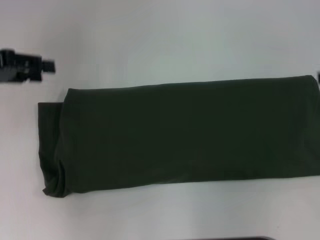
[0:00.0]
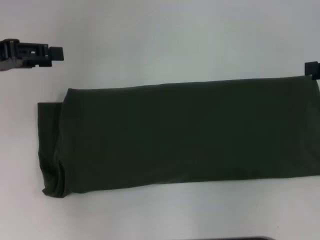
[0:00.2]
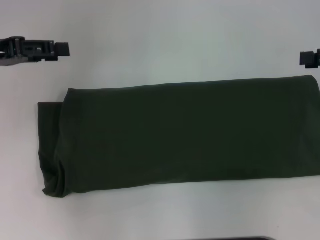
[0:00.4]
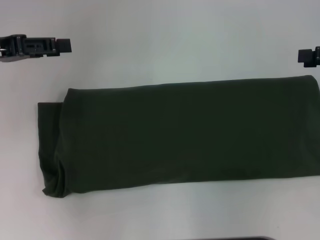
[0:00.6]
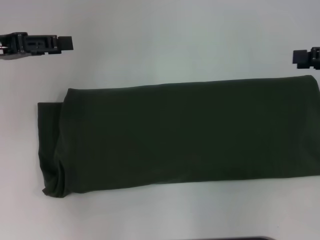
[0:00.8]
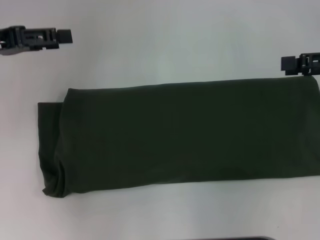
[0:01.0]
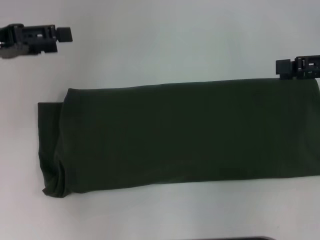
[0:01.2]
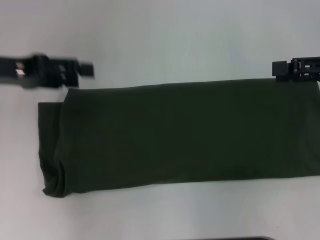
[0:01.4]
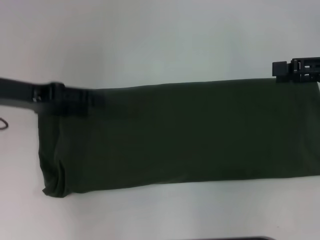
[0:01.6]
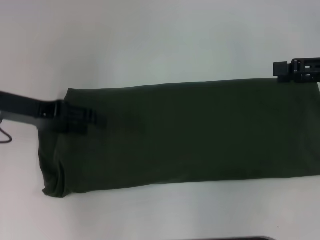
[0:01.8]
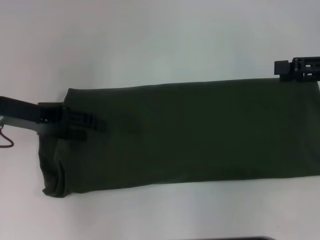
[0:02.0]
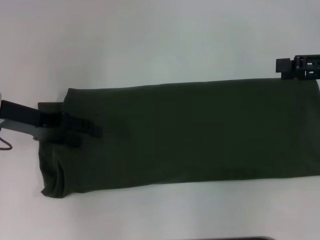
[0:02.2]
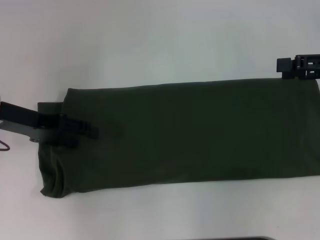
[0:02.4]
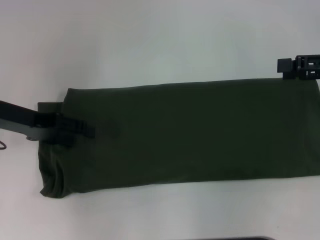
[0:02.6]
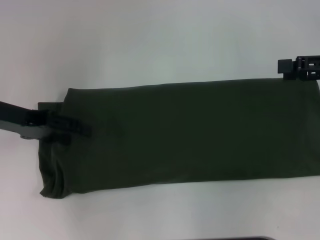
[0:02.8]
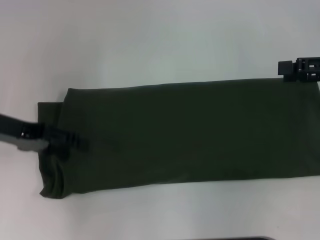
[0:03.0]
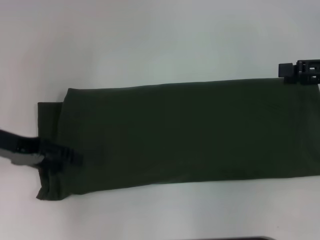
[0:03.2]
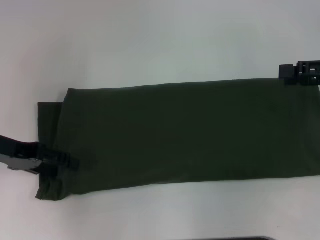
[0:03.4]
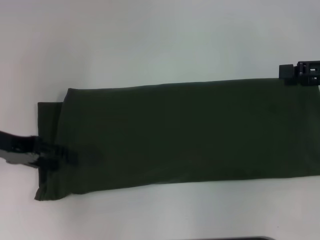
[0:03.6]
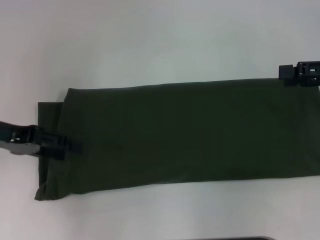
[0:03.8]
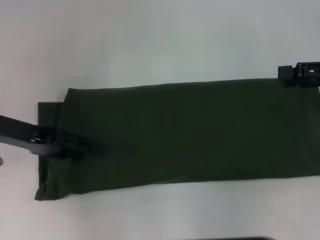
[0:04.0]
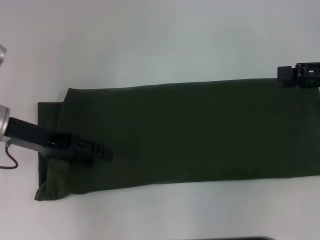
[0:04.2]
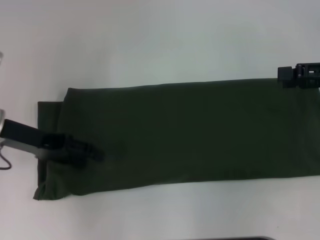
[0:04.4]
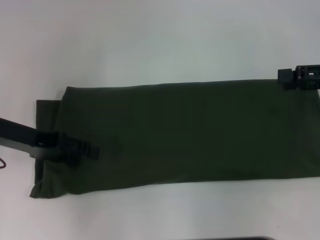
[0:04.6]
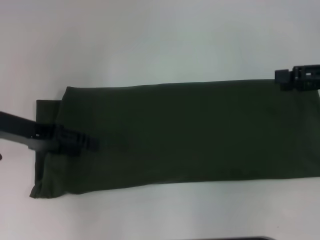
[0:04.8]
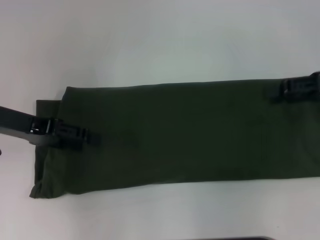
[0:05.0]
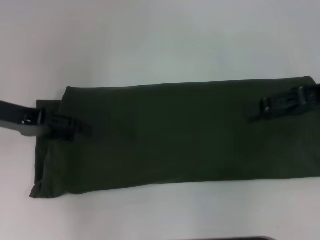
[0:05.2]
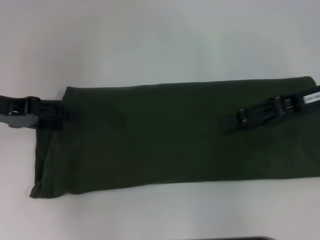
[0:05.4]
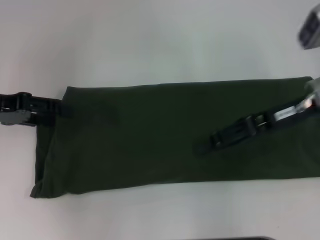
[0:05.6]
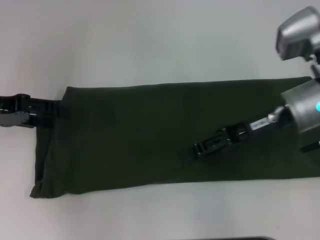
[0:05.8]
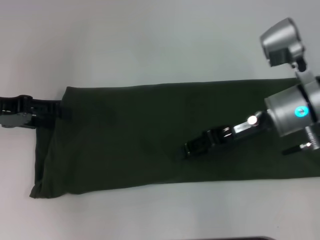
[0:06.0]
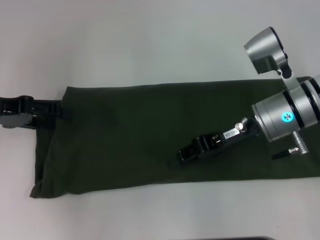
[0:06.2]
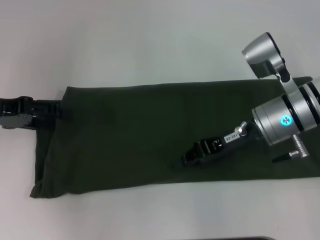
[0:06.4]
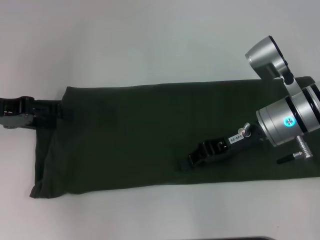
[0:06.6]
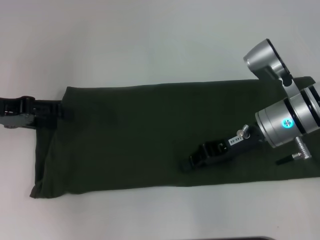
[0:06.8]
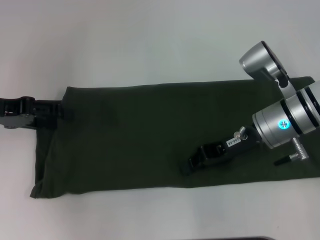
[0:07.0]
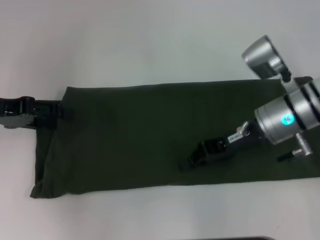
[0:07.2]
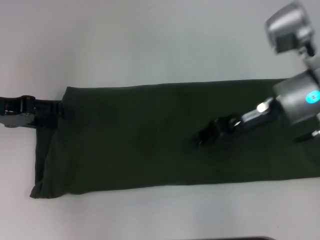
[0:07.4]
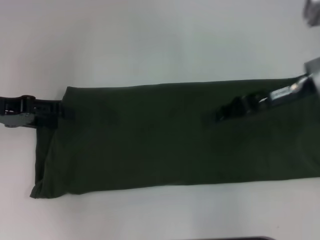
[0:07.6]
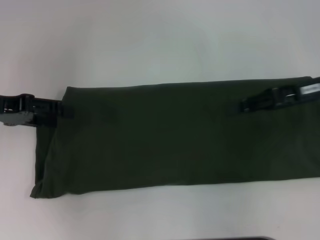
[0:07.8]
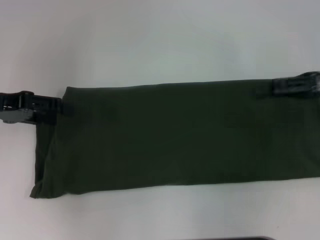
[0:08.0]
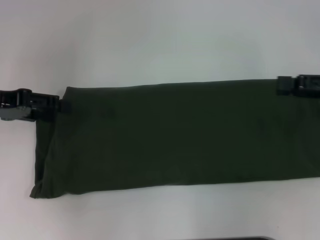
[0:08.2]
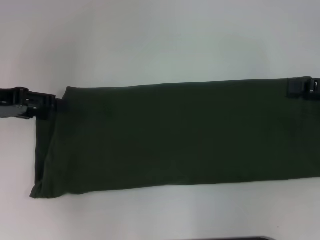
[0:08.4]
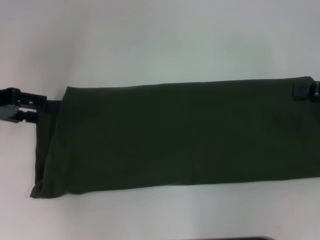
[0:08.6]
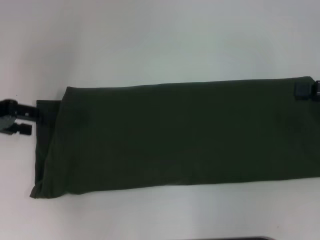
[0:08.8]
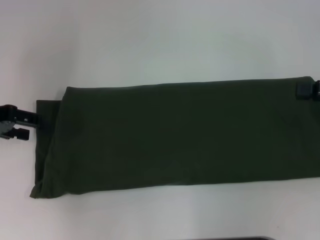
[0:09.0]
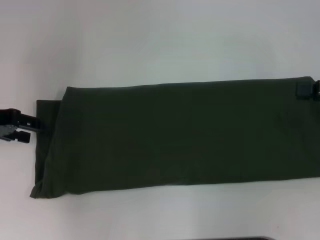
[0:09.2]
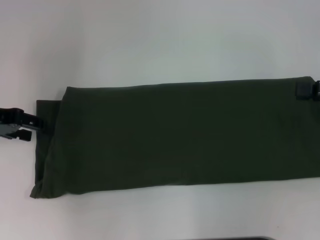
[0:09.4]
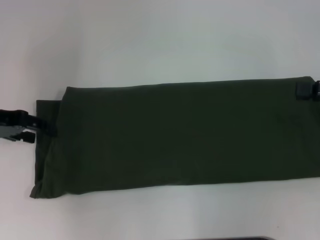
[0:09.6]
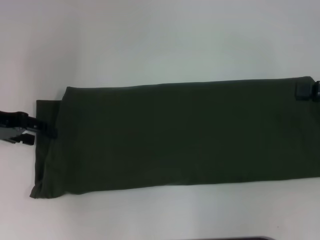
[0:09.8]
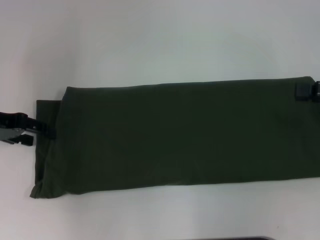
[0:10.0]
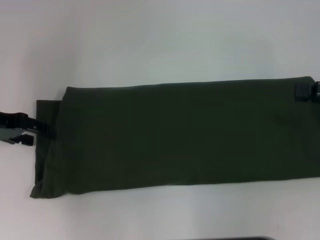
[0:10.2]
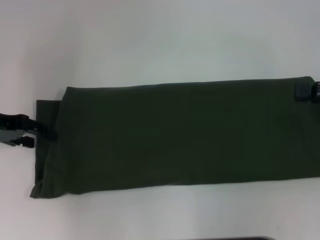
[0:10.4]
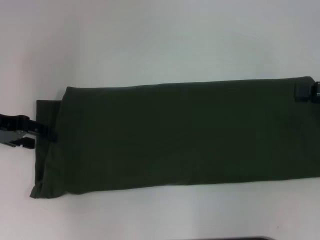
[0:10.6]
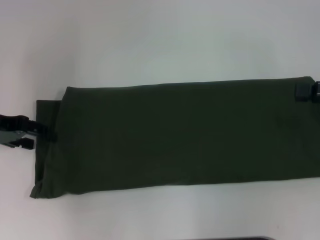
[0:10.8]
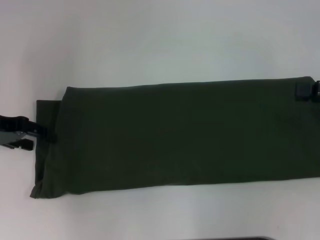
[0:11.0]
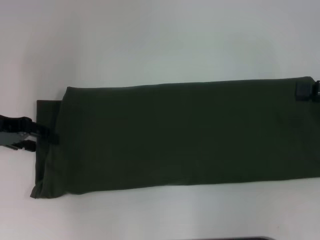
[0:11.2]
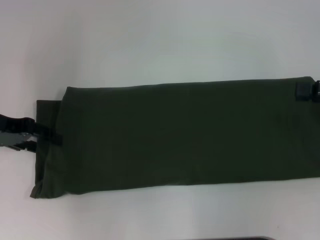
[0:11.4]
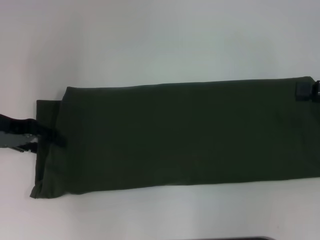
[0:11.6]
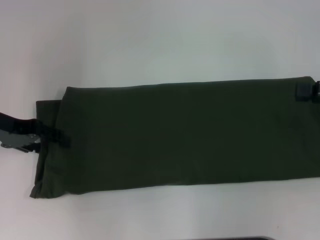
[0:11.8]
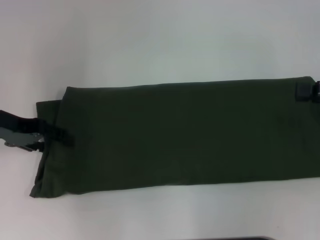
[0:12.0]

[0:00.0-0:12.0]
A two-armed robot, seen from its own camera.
0:00.0 to 0:01.6: The left gripper heads to the right, covering roughly 5 cm; the right gripper shifts about 5 cm to the left.
0:01.6 to 0:04.4: The grippers make only small movements.
0:04.4 to 0:06.0: The right gripper heads to the left, covering about 15 cm, and closes, while the left gripper travels to the left by some 5 cm.
0:06.0 to 0:07.6: The right gripper ends up some 5 cm from where it was, and closes up.
0:07.6 to 0:09.0: The right gripper is displaced to the right by about 15 cm, and opens up.
0:09.0 to 0:12.0: The grippers move only a little.

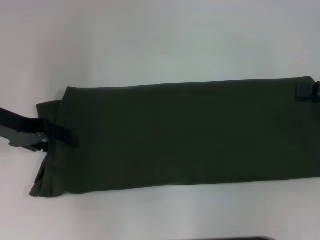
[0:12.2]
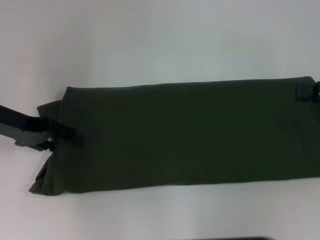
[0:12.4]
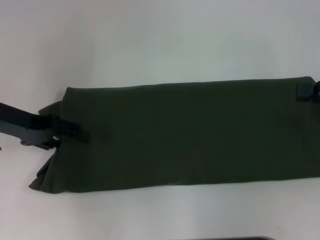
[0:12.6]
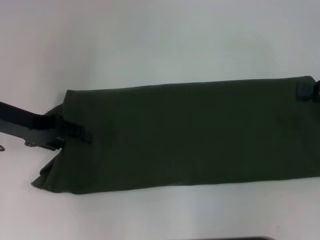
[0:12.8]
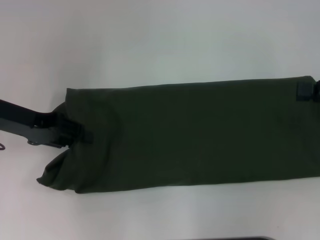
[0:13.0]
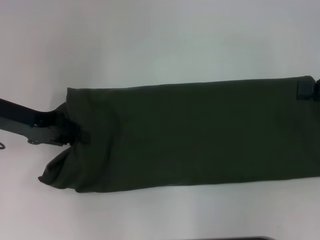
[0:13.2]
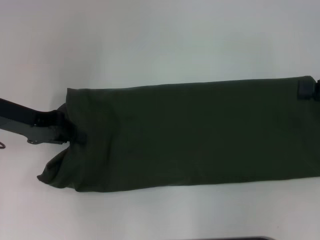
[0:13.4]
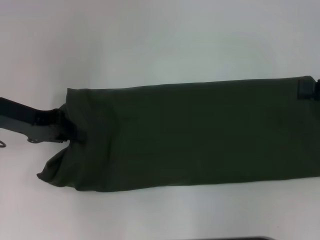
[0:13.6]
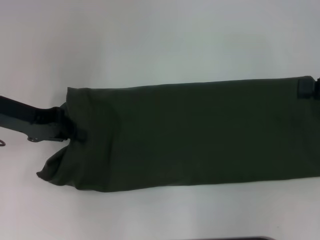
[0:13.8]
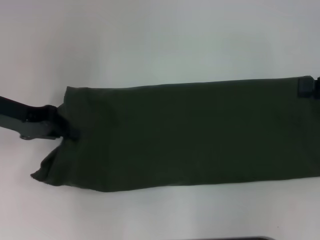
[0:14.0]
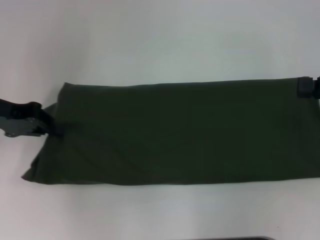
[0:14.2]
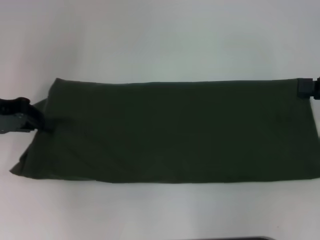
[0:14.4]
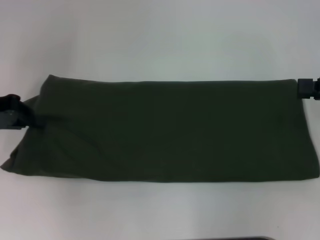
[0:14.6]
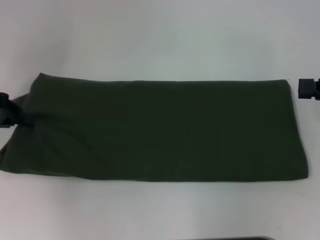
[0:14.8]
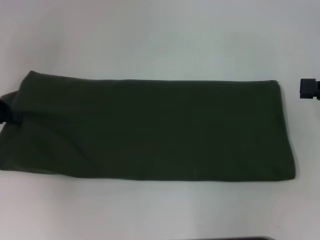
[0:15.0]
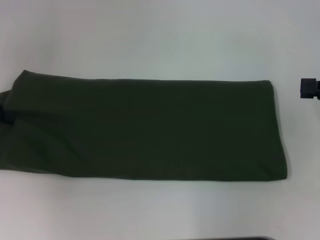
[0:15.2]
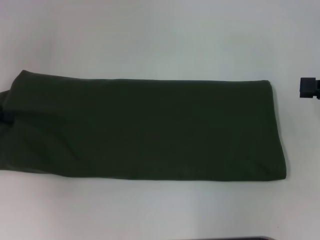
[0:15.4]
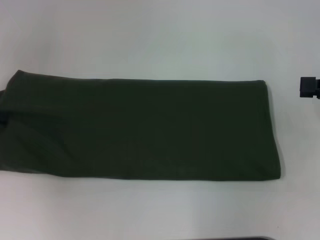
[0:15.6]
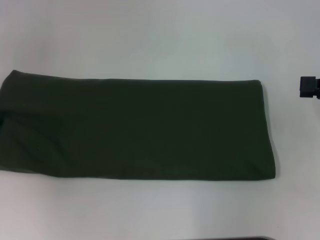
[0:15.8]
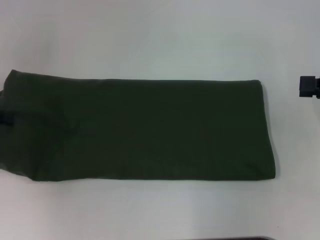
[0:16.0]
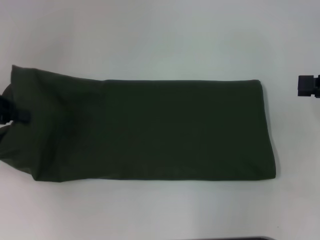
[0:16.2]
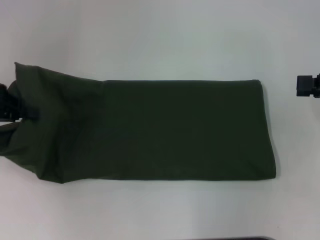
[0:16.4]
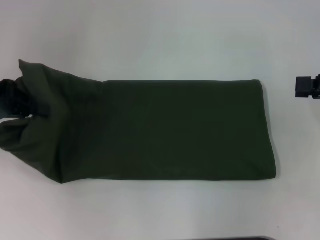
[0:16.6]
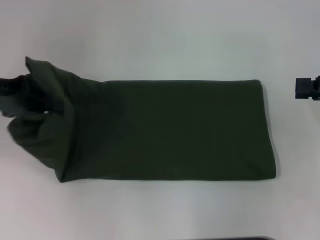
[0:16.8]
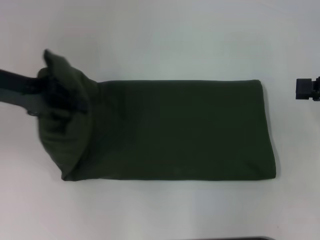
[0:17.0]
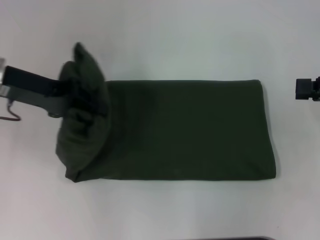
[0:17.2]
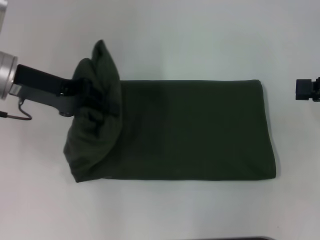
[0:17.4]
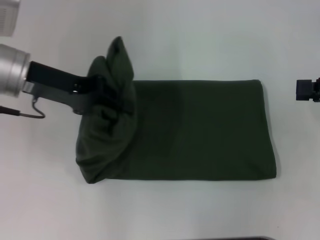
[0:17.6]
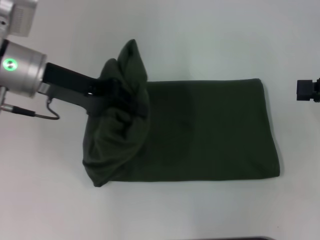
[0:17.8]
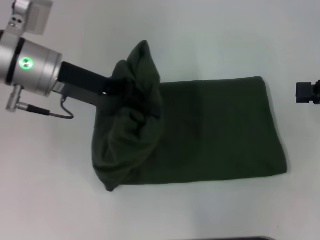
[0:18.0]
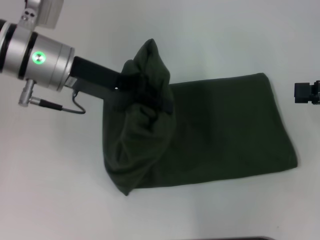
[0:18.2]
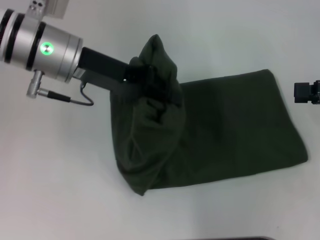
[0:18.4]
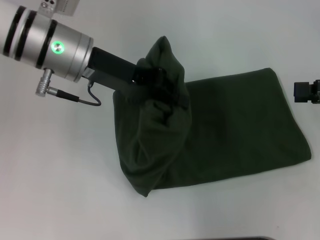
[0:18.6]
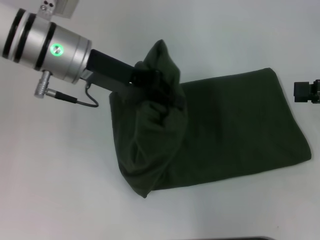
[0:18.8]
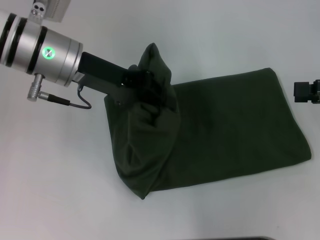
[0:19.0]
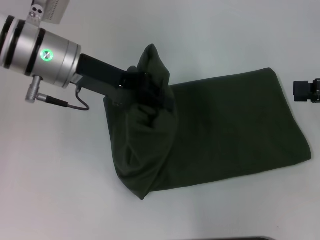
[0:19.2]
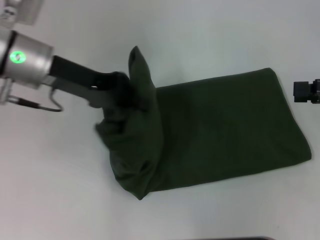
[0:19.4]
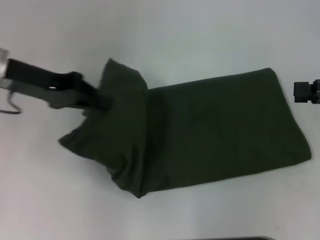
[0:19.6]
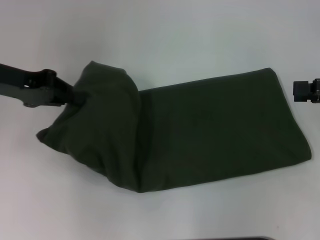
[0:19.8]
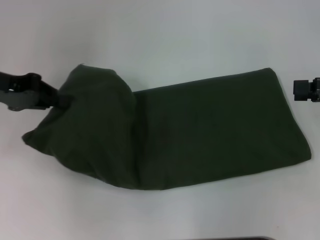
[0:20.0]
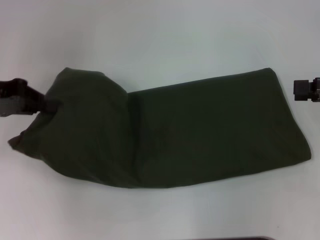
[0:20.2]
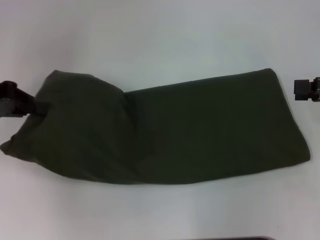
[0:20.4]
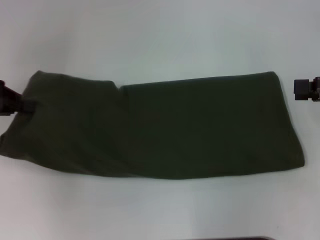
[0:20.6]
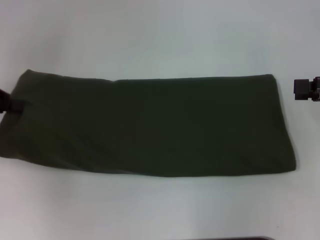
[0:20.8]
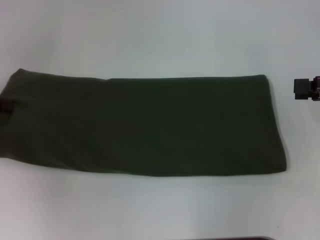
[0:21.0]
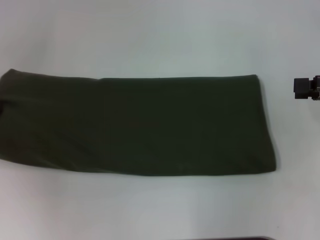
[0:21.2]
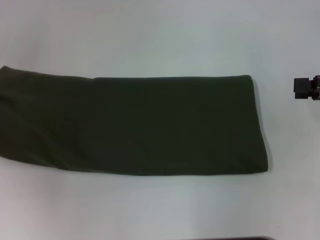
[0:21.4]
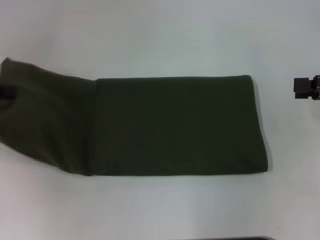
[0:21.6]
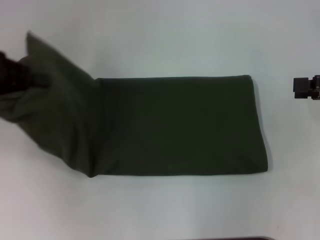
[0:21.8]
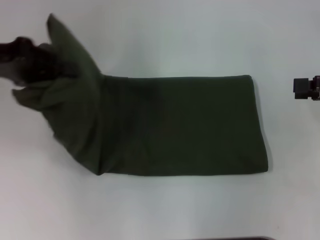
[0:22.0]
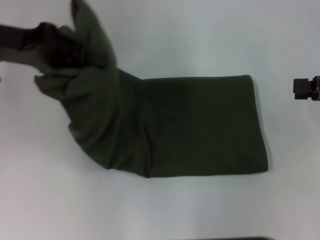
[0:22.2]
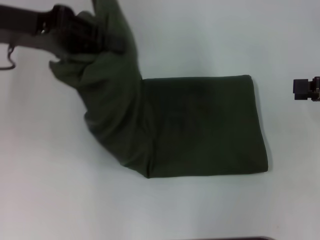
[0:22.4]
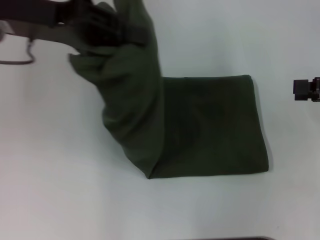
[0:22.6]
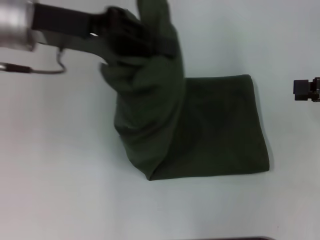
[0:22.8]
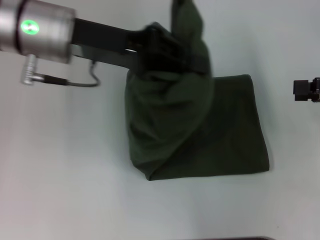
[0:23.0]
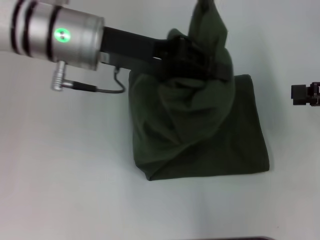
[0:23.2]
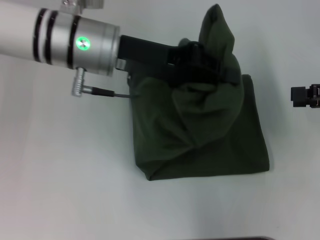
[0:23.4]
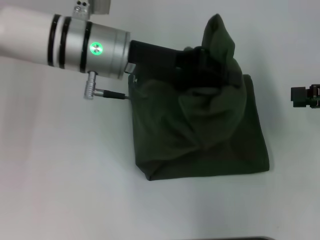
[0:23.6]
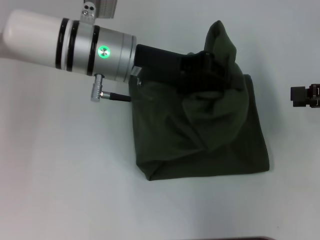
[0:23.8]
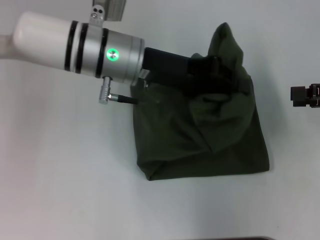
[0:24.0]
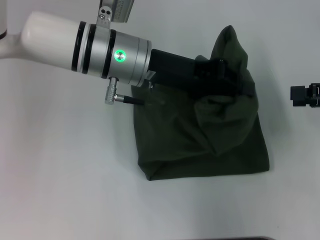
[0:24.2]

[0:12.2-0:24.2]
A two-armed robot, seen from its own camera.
0:12.2 to 0:13.8: The left gripper closes up.
0:13.8 to 0:15.2: The left gripper goes roughly 10 cm to the left.
0:15.2 to 0:16.6: The grippers make only small movements.
0:16.6 to 0:18.2: The left gripper goes approximately 15 cm to the right.
0:18.2 to 0:19.8: The left gripper goes some 10 cm to the left.
0:19.8 to 0:21.2: The left gripper goes roughly 10 cm to the left.
0:21.2 to 0:22.6: The left gripper moves to the right, about 20 cm.
0:22.6 to 0:24.2: The left gripper goes approximately 15 cm to the right and downward.
